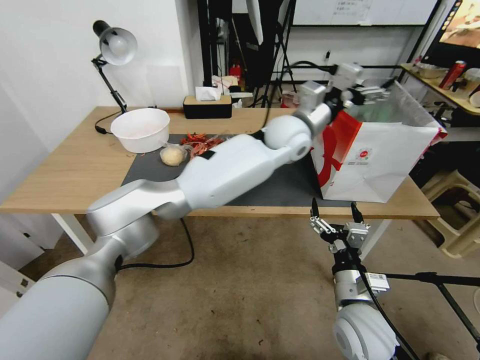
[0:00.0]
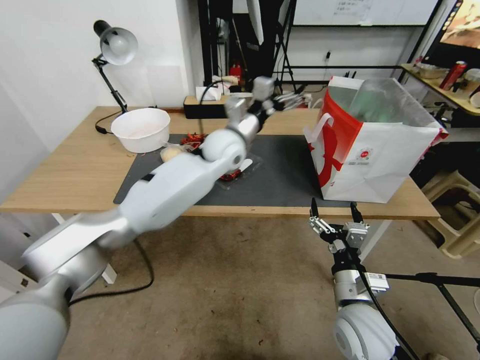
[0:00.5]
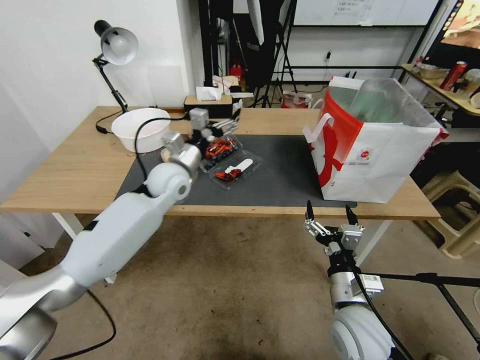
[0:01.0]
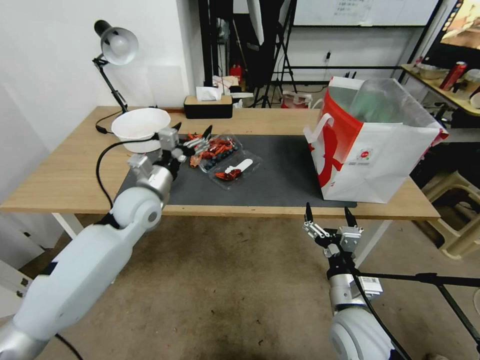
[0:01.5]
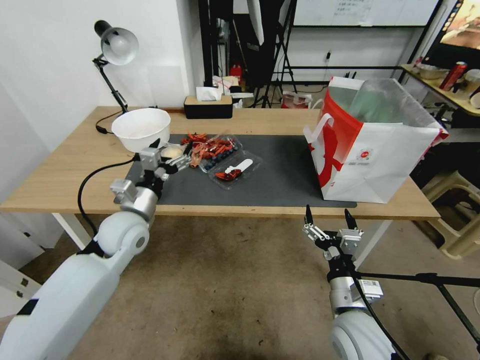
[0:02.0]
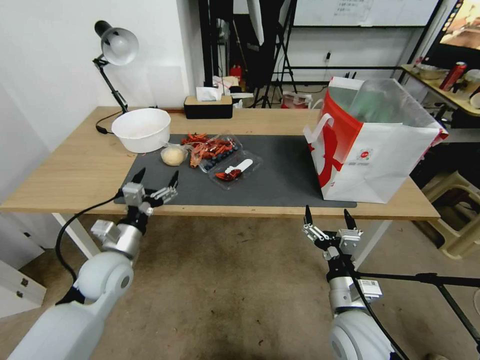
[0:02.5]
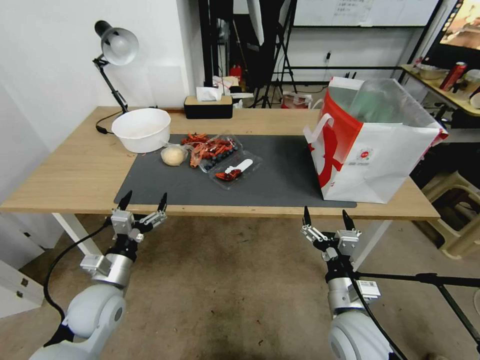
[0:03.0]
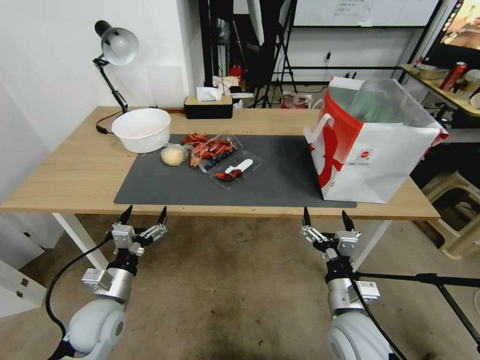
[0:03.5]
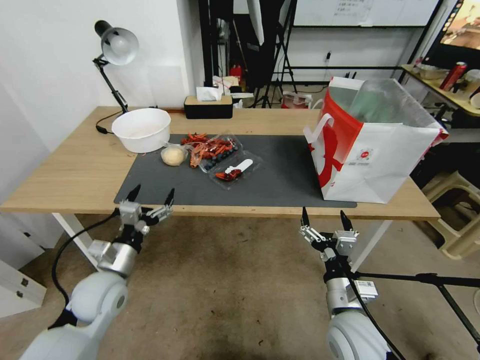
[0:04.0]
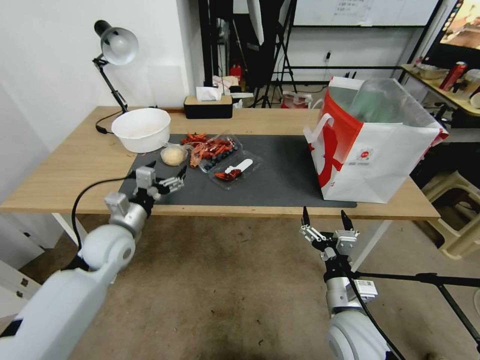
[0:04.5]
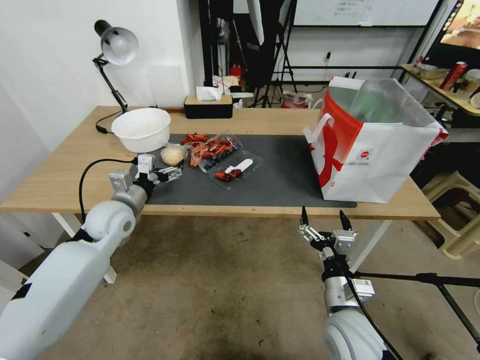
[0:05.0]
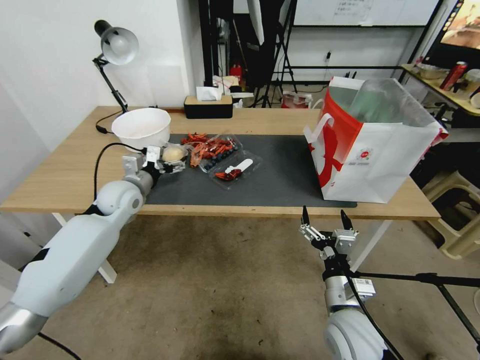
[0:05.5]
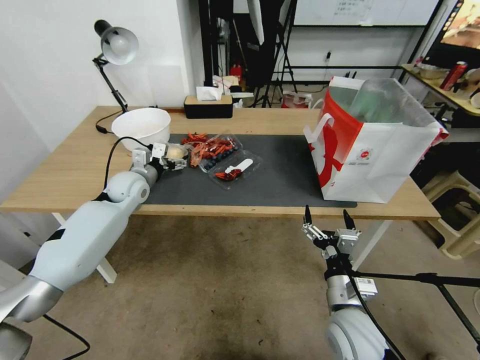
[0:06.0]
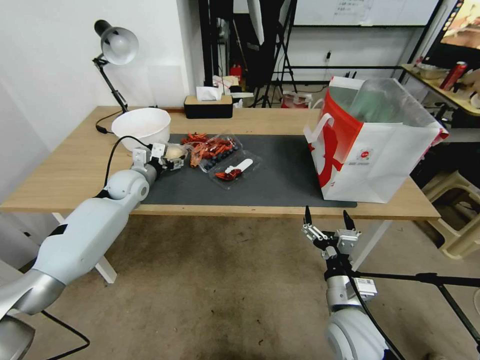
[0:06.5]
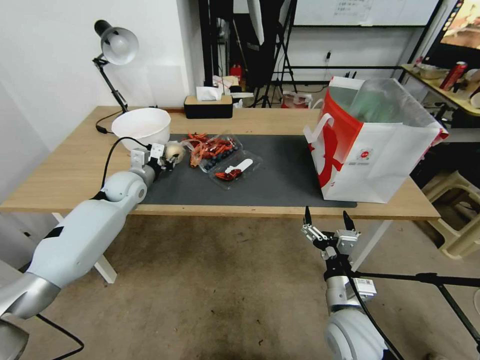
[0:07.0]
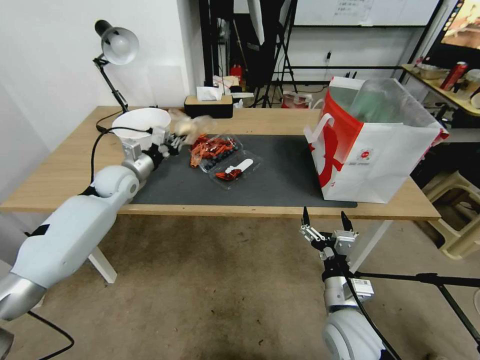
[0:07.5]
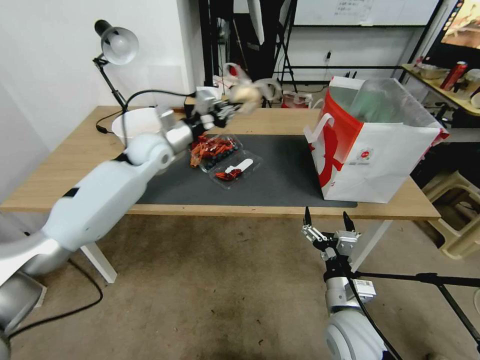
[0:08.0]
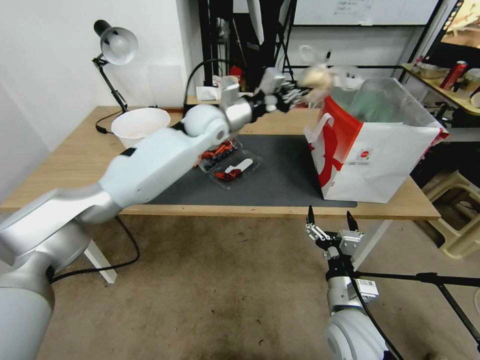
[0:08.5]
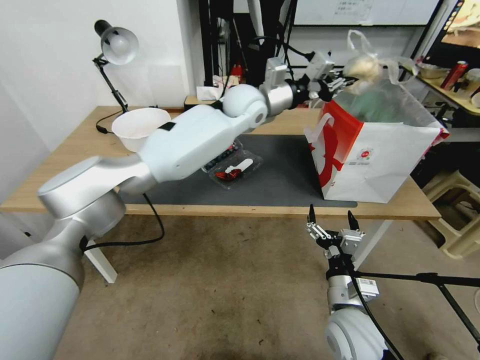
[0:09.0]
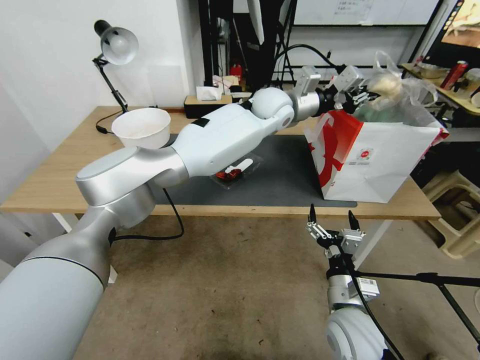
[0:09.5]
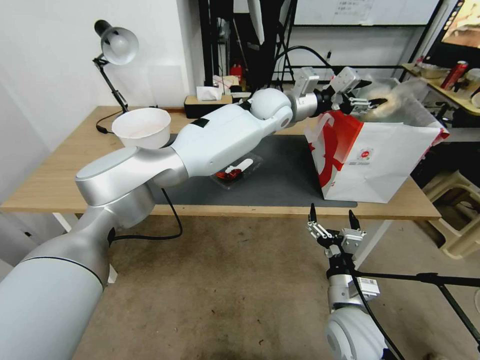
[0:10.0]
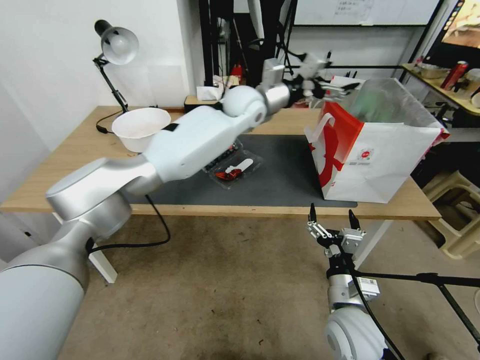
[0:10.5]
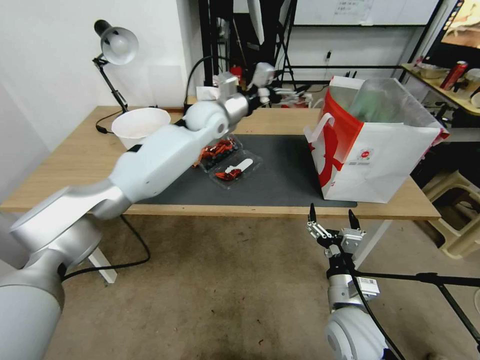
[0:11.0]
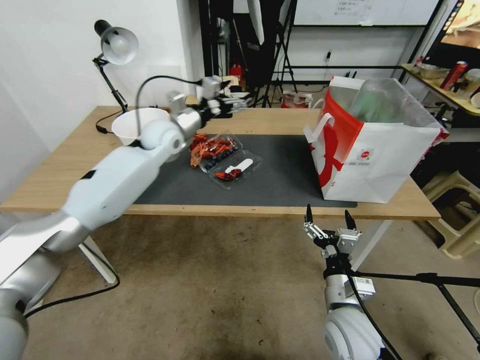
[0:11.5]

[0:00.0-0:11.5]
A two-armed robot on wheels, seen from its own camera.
0:00.0 to 0:02.0: The left gripper moves to the left, downward and backward, about 40 cm.
0:02.0 to 0:04.0: The left gripper goes approximately 15 cm backward and downward.
0:04.0 to 0:06.0: The left gripper heads forward, covering roughly 25 cm.
0:06.0 to 0:07.5: The left gripper closes its fingers.
0:07.5 to 0:09.5: The left gripper shifts roughly 40 cm to the right and upward.
0:09.5 to 0:11.5: The left gripper moves to the left, roughly 30 cm, and opens its fingers.

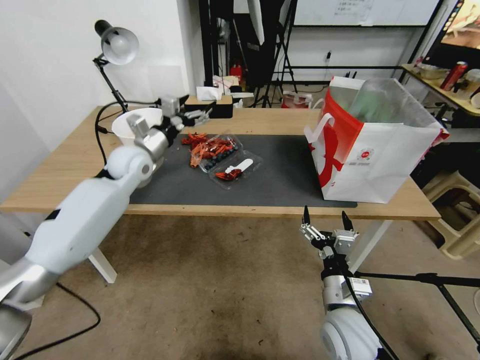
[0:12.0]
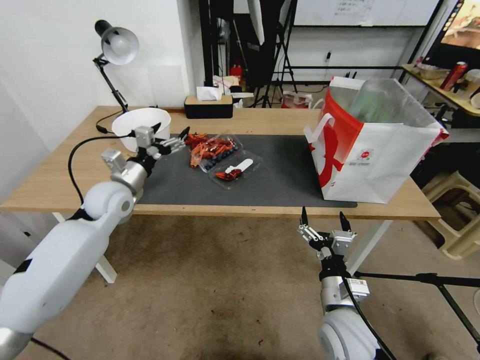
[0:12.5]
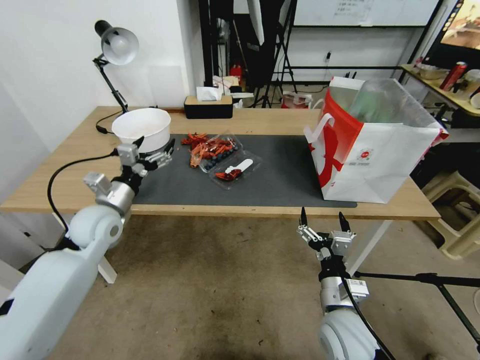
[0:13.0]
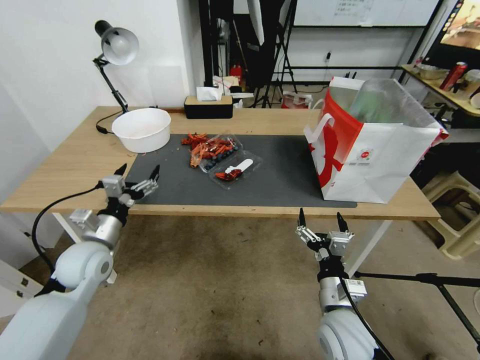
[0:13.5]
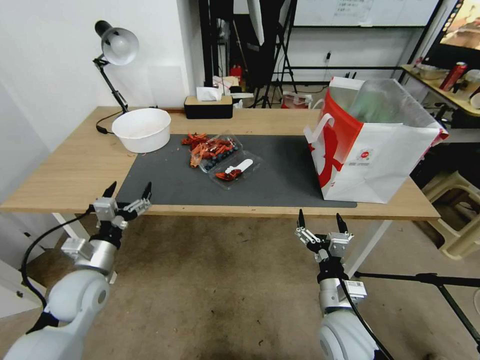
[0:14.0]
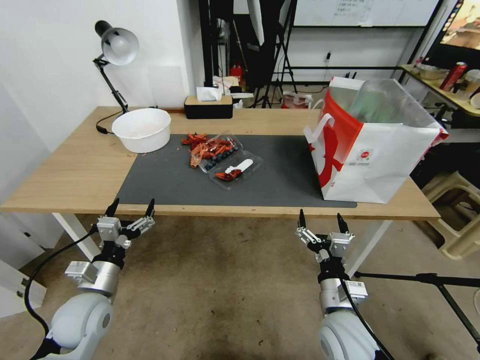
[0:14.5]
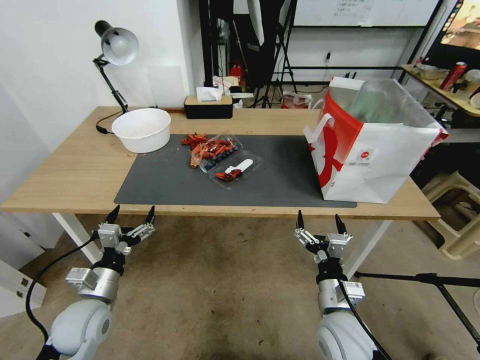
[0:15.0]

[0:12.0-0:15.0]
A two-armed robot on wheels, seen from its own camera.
0:12.0 to 0:13.5: The left gripper shifts roughly 20 cm backward and downward.
0:13.5 to 0:15.0: The left gripper shifts approximately 10 cm backward and downward.

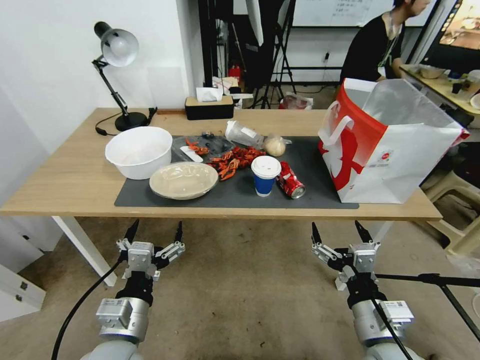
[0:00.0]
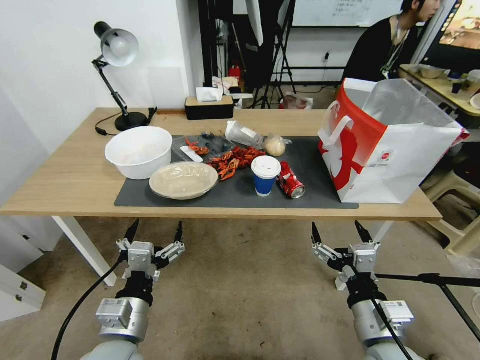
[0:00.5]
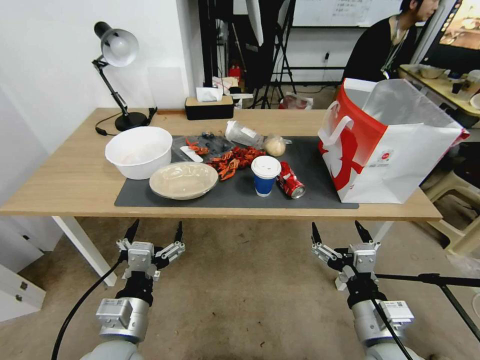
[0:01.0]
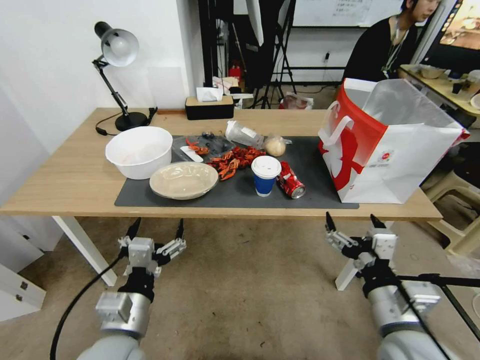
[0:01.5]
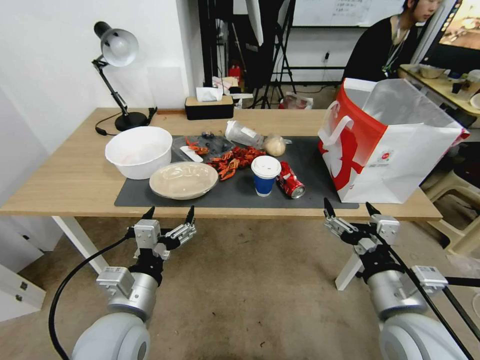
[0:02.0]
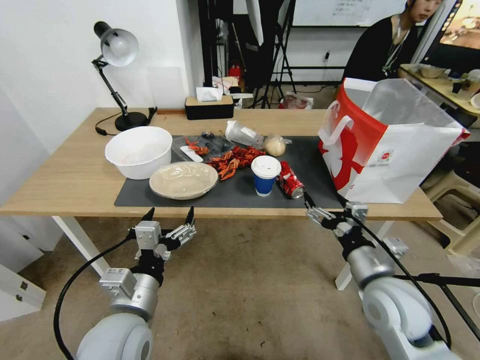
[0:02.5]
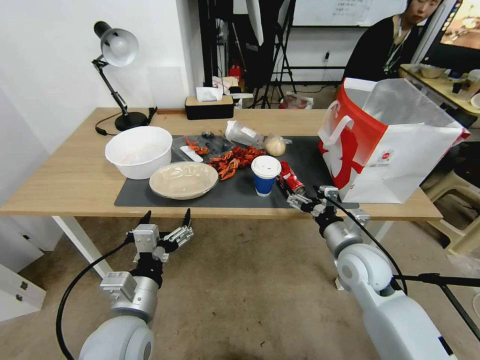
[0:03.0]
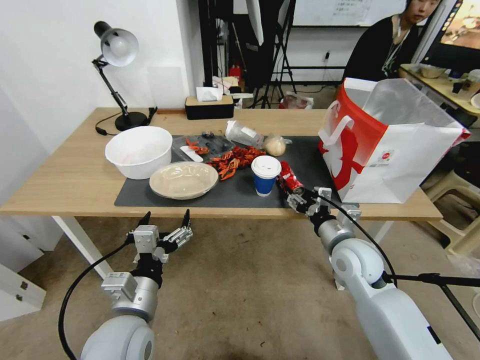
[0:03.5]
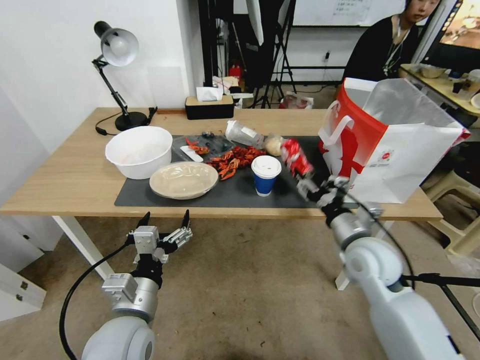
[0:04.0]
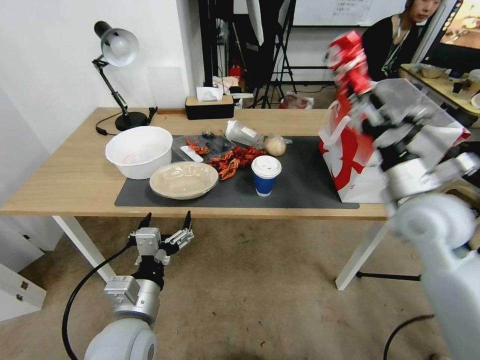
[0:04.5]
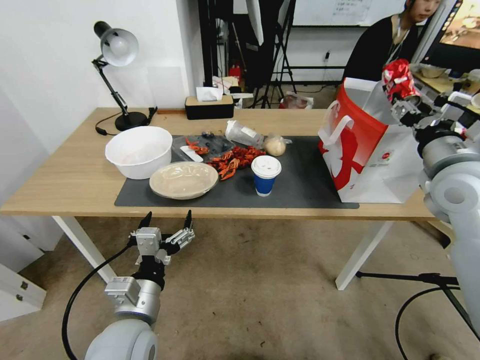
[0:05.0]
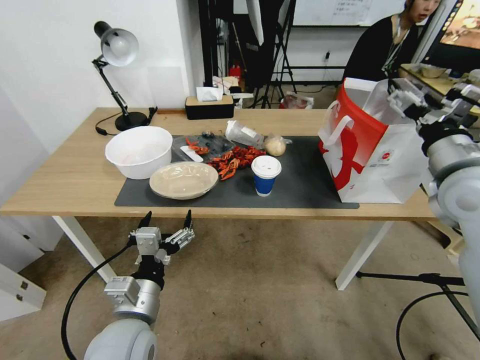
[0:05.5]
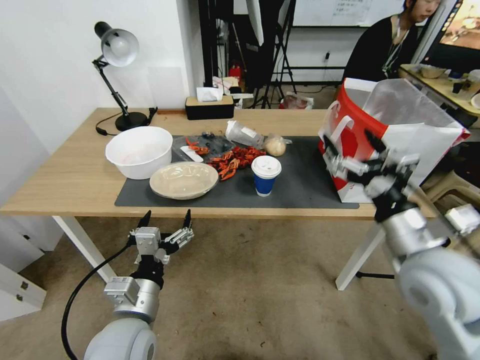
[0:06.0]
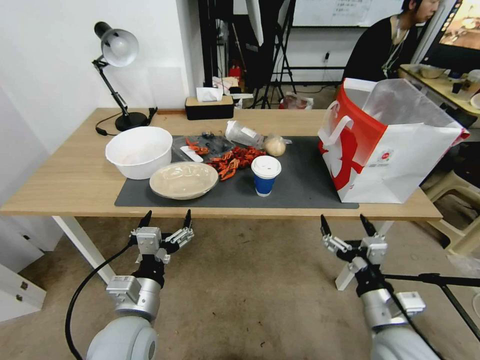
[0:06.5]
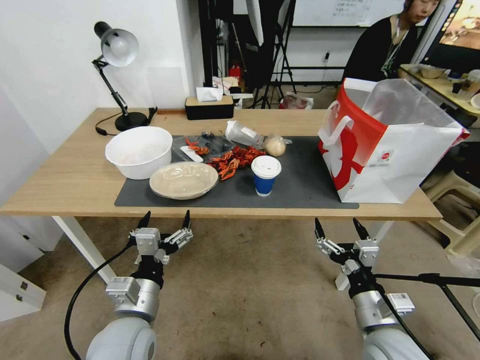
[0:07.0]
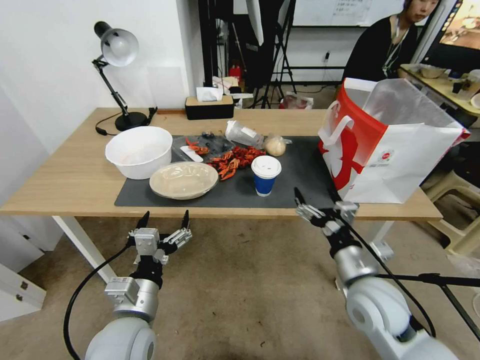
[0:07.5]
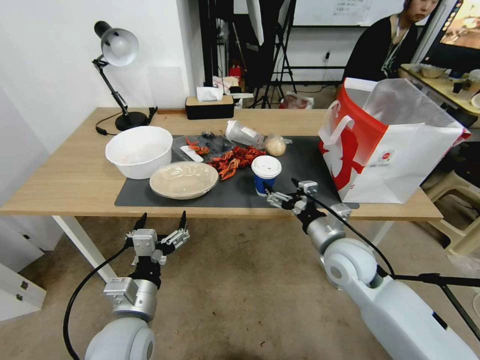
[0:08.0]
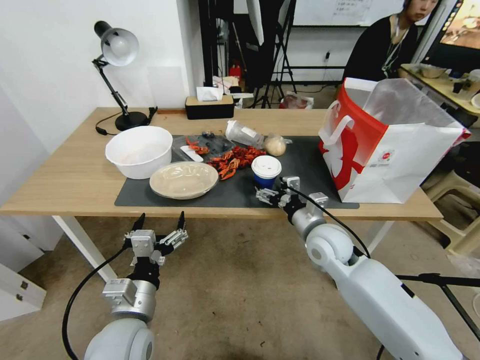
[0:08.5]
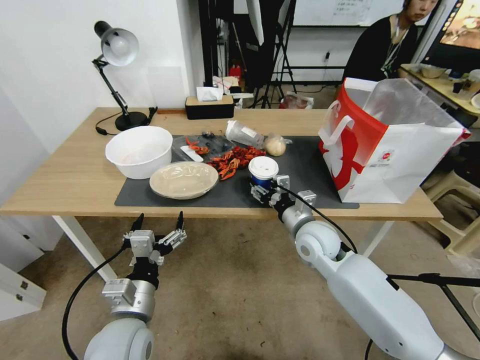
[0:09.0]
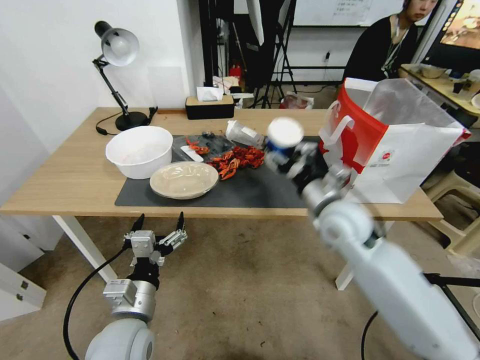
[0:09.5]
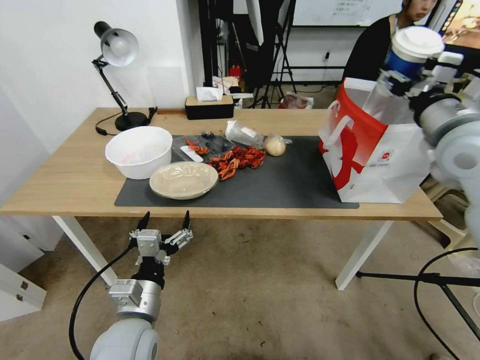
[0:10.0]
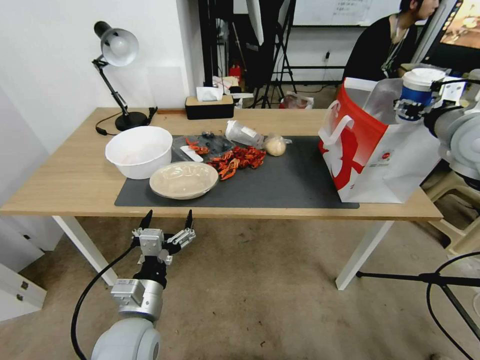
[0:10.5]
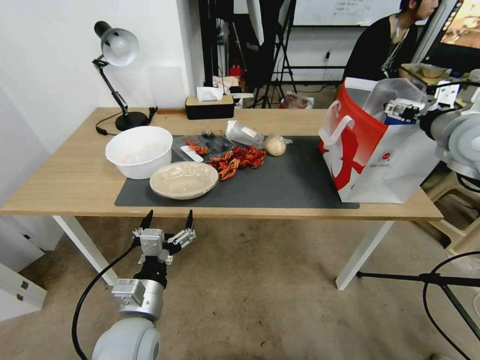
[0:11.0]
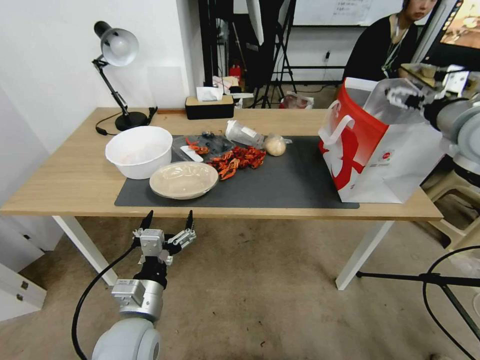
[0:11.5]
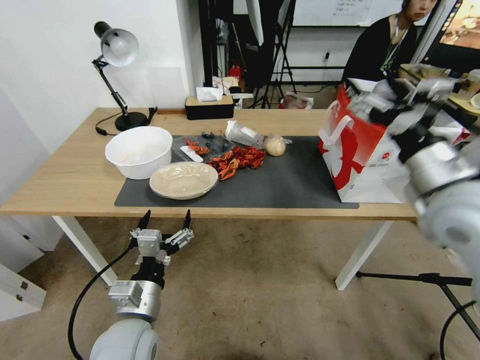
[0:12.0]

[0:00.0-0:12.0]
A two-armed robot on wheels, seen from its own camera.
0:02.0 to 0:04.0: The right gripper travels forward by about 15 cm, and closes.
0:04.0 to 0:06.0: The right gripper goes about 15 cm upward and backward, and opens.
0:06.0 to 0:08.0: The right gripper shifts roughly 15 cm downward, forward and to the left.
0:08.0 to 0:10.0: The right gripper heads upward and to the right, covering about 30 cm, and closes its fingers.
0:10.0 to 0:12.0: The right gripper is displaced backward by about 10 cm, and opens its fingers.
